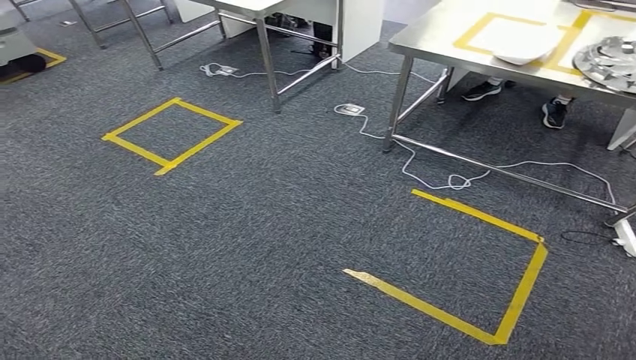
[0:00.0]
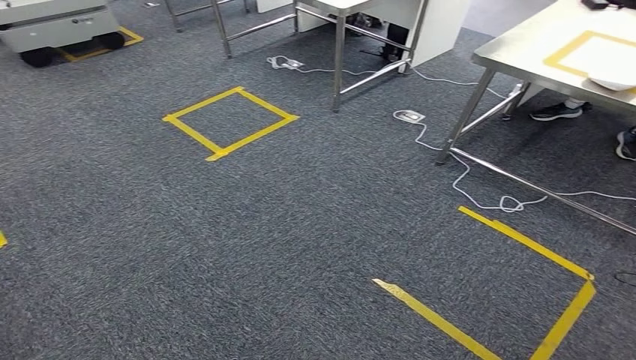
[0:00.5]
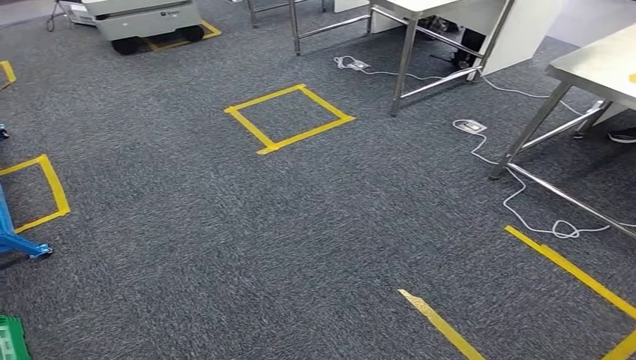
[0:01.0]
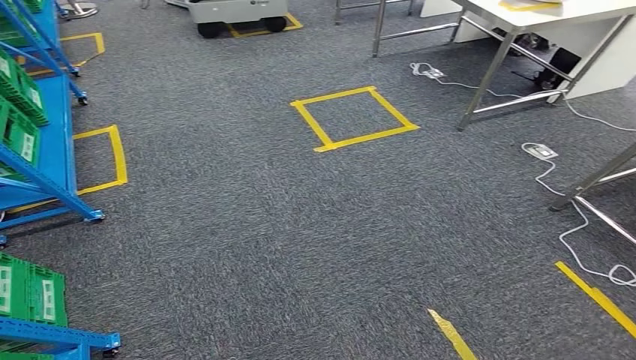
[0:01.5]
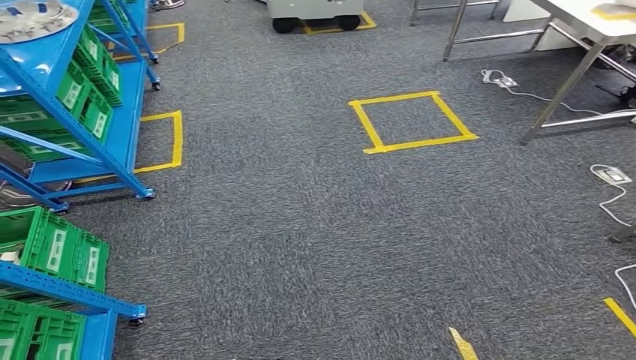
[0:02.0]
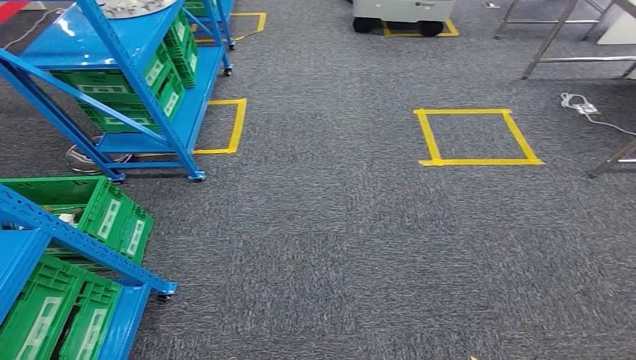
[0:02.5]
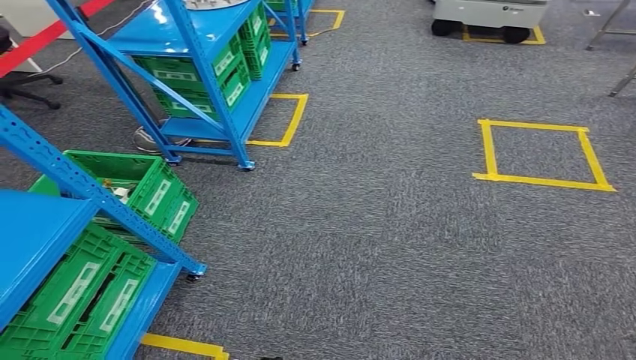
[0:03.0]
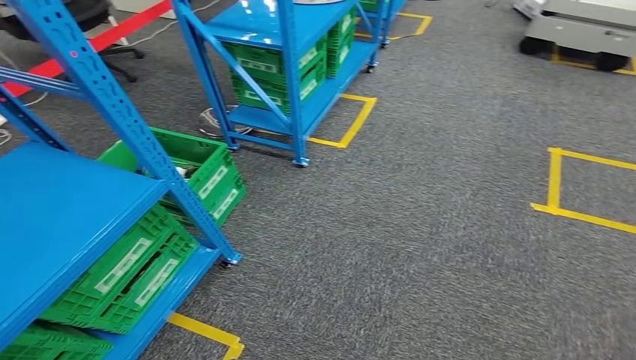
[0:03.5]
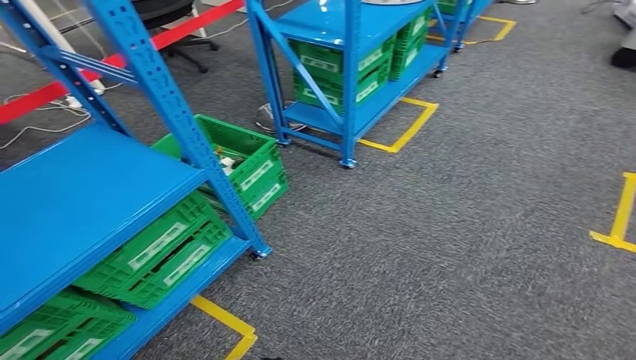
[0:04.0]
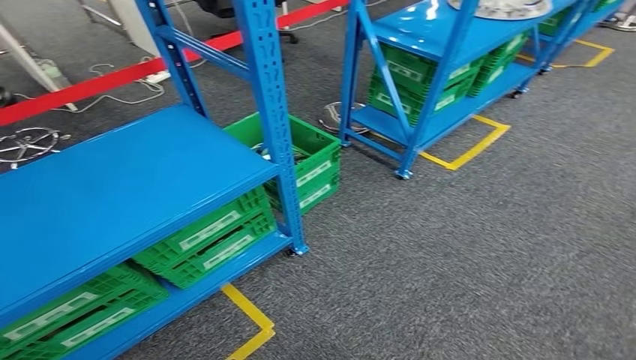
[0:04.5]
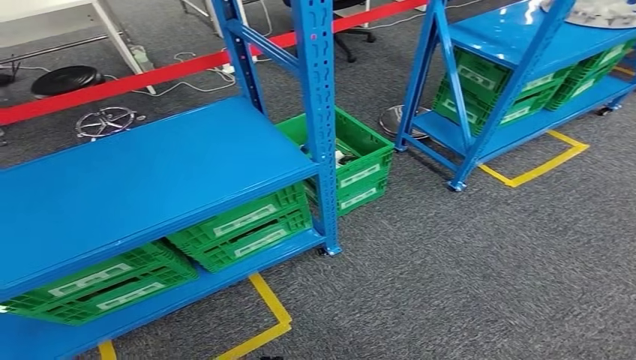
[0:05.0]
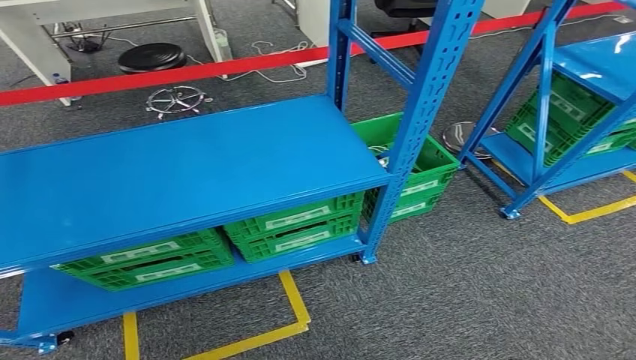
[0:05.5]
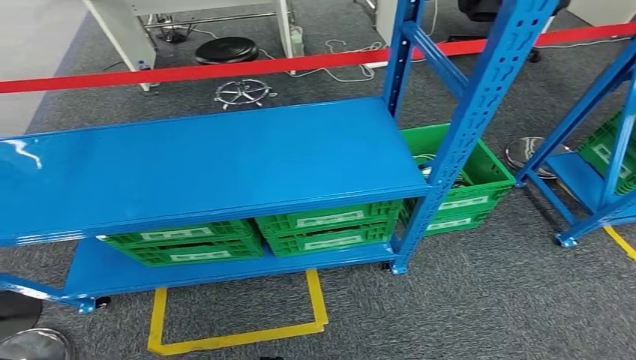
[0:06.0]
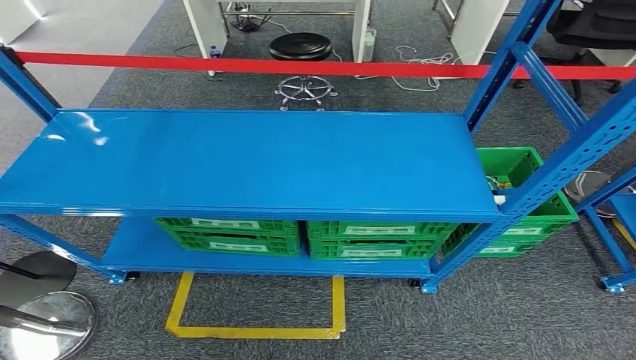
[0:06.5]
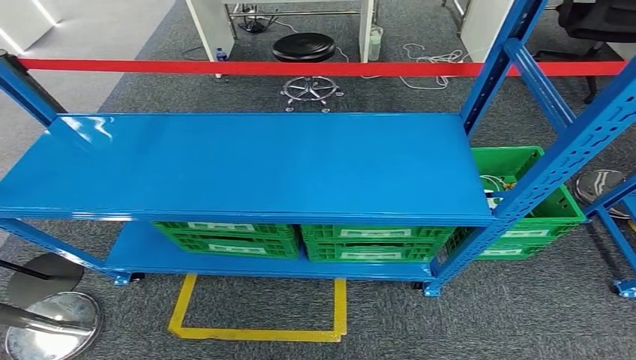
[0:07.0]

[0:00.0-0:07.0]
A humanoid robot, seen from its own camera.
Step, 0:00.0 to 0:07.0: Move to the initial position at the workbench.

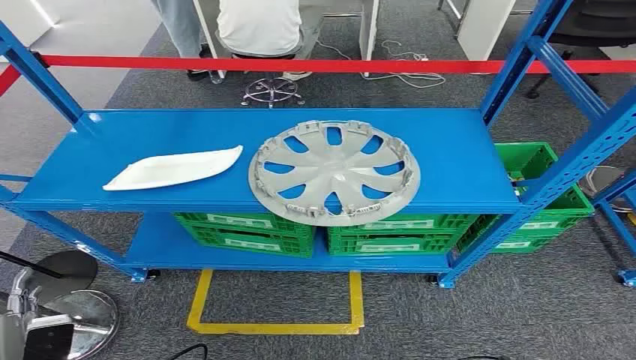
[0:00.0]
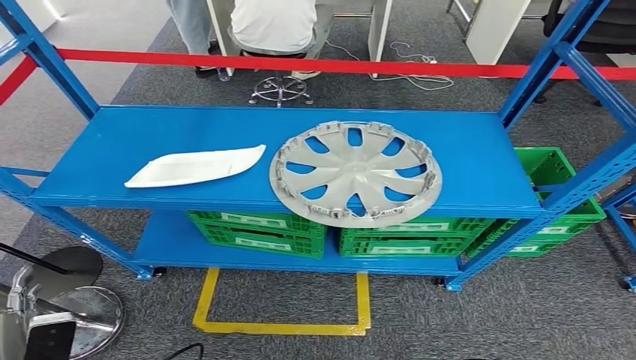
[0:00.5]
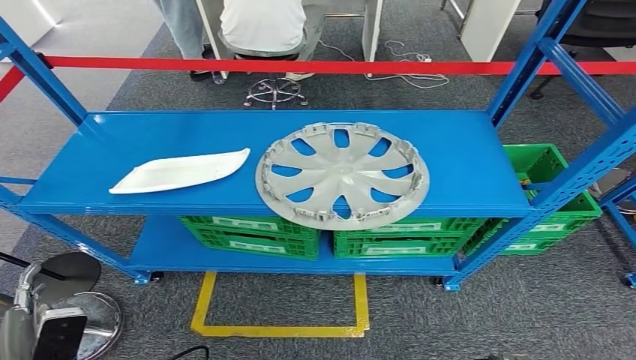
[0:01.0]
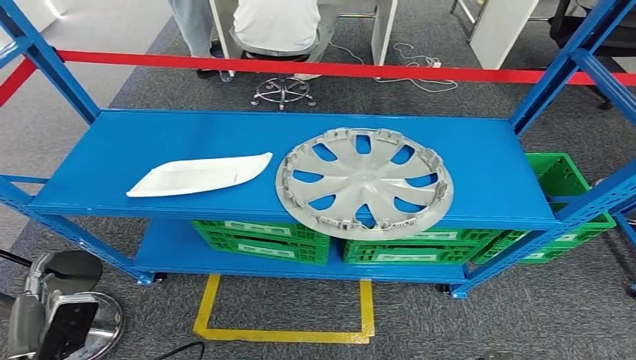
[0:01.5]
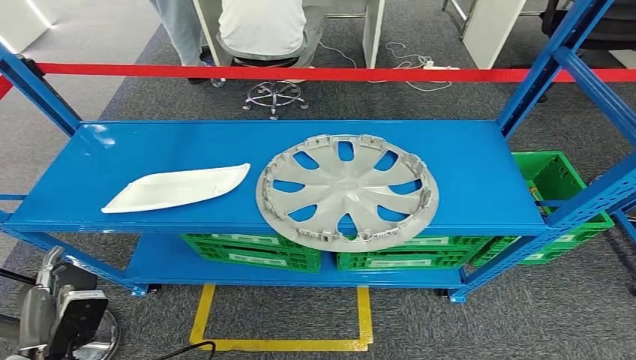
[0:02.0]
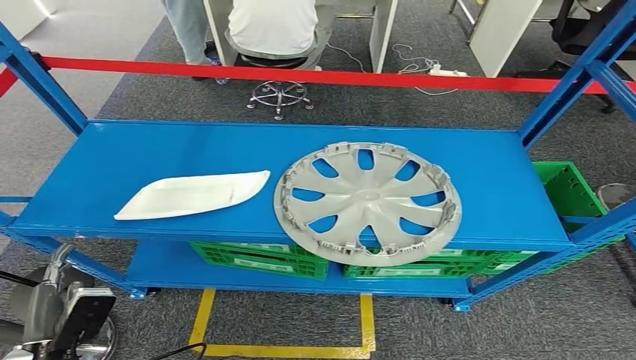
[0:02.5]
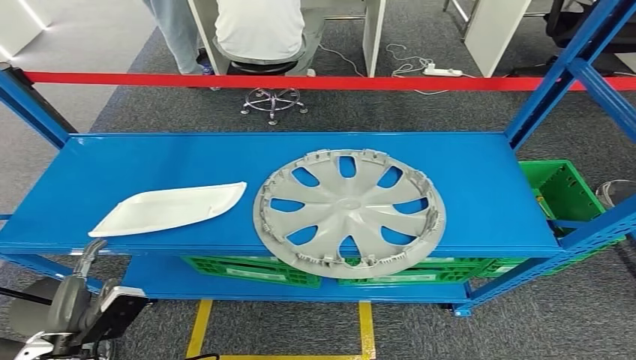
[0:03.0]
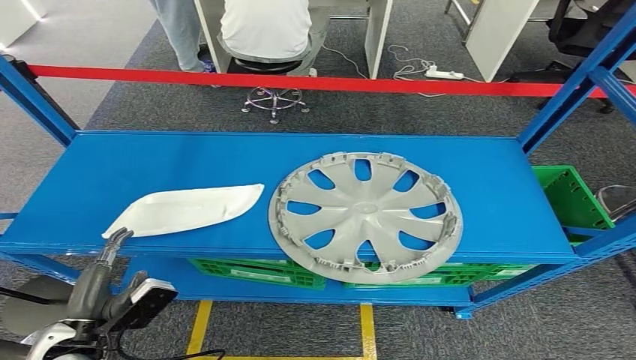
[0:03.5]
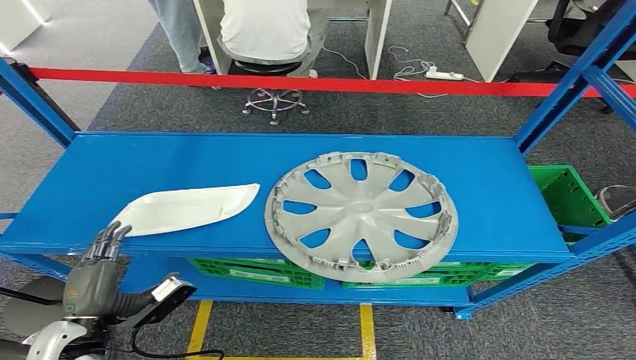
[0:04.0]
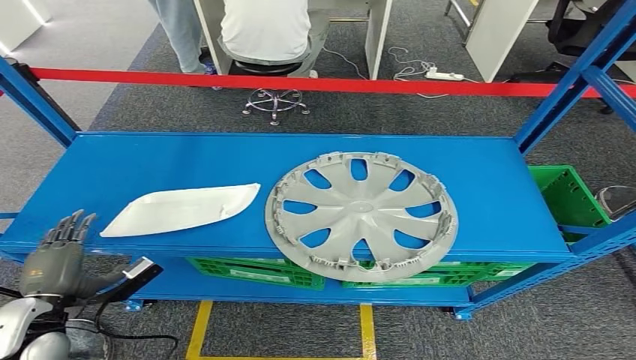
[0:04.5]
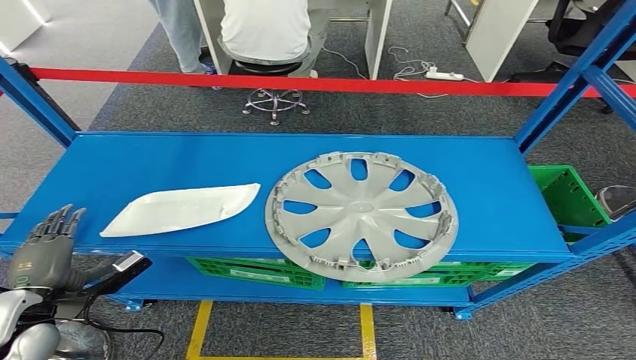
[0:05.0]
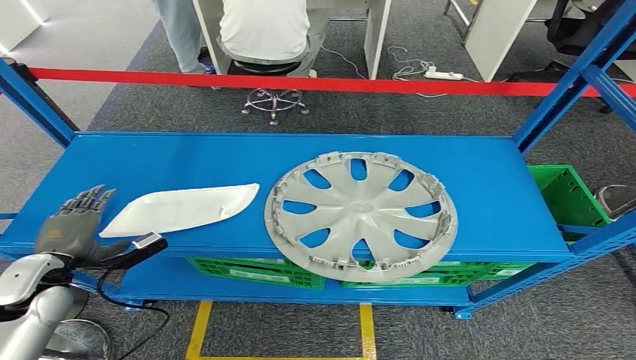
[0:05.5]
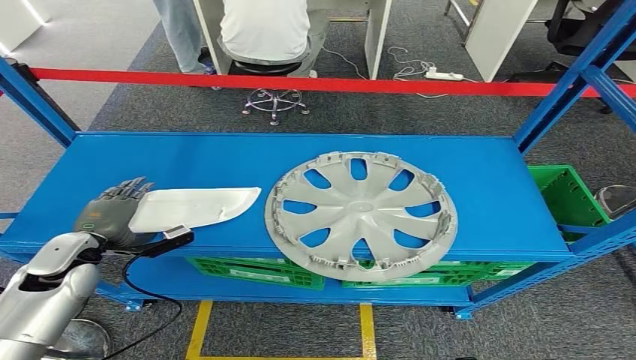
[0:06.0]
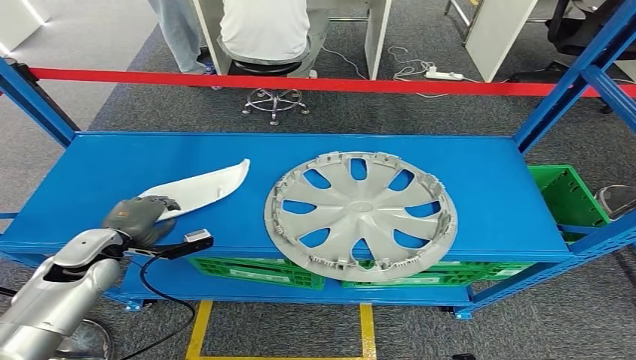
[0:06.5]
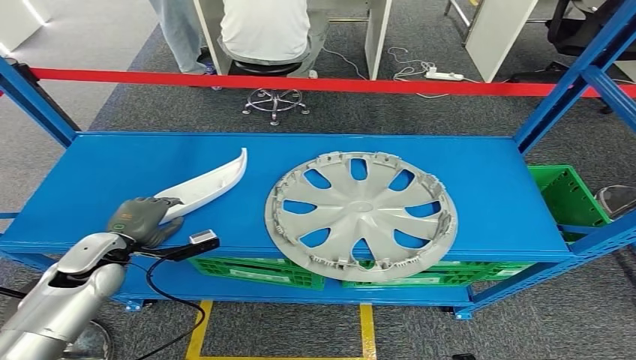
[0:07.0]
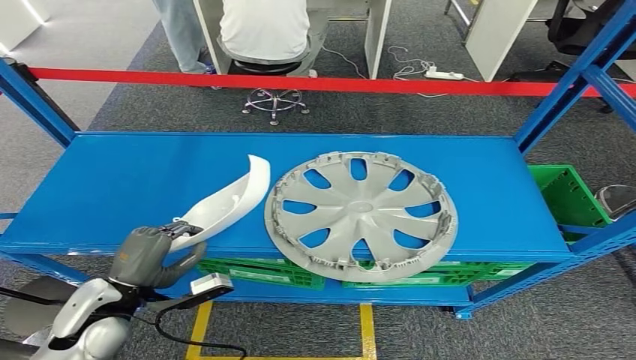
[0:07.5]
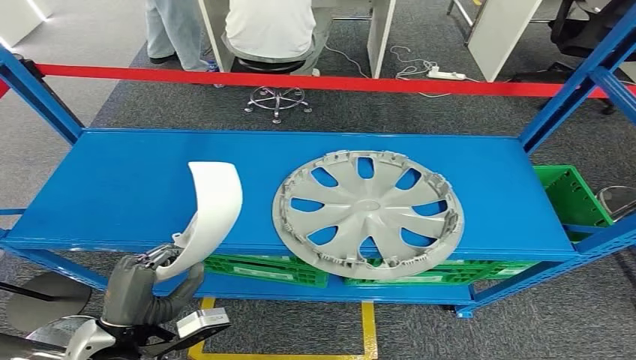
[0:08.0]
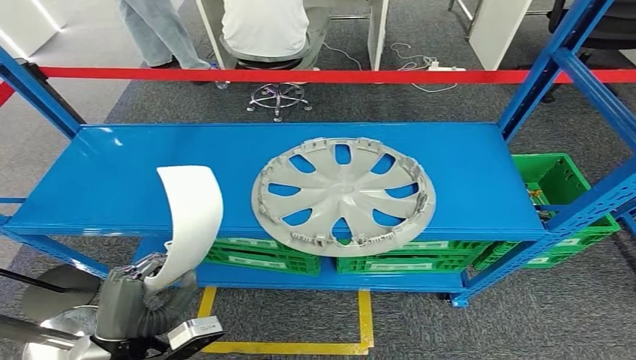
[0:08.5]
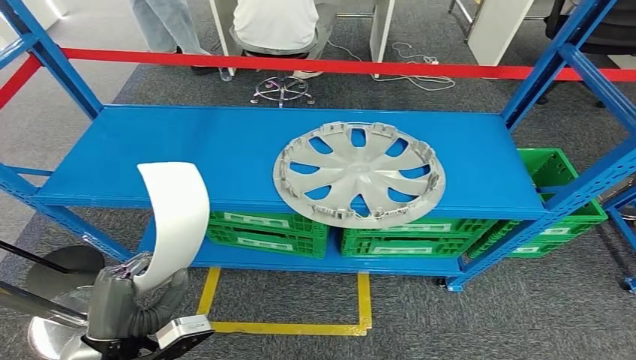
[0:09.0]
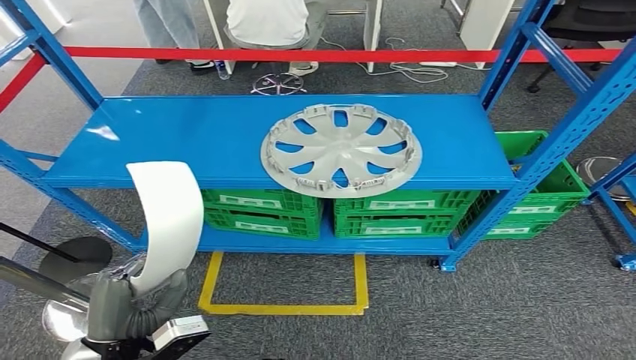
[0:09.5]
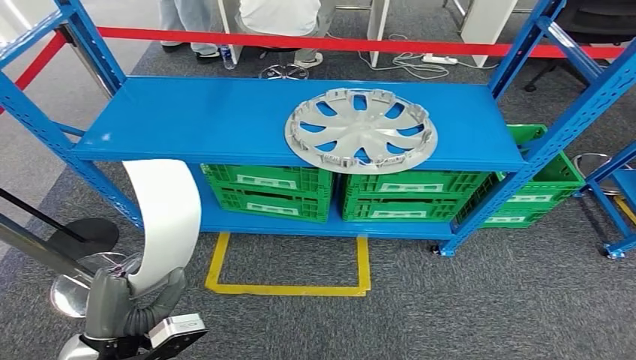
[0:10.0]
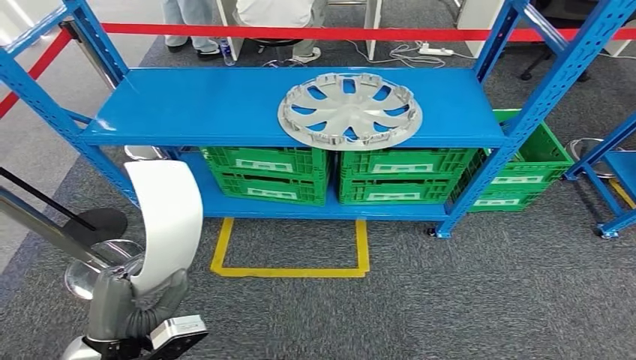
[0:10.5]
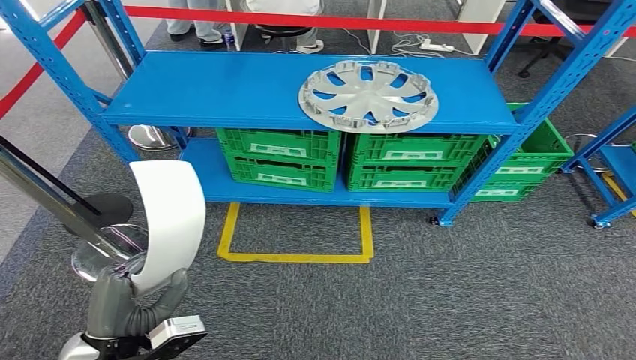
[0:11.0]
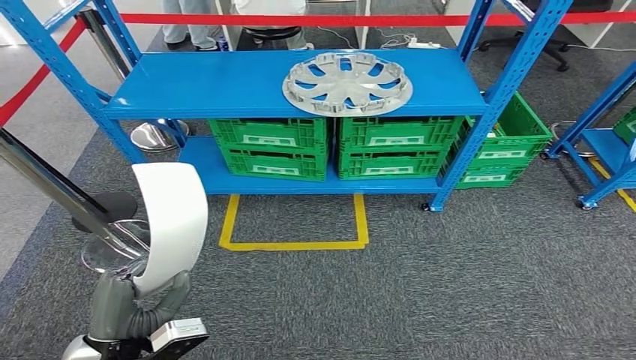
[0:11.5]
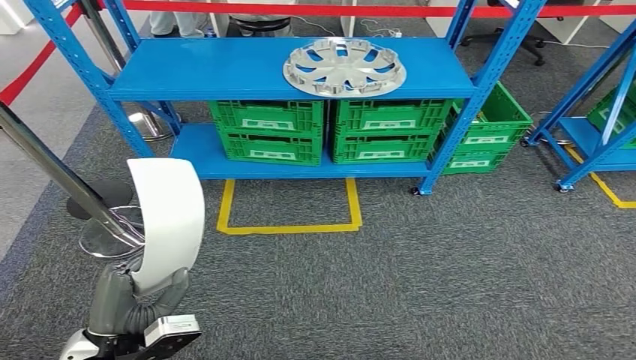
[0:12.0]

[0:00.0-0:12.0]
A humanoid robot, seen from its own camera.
Step, 0:00.0 to 0:11.0: Pick up the small component from the shelf.
0:04.0 to 0:06.0: The left hand travels forward by some 15 cm.

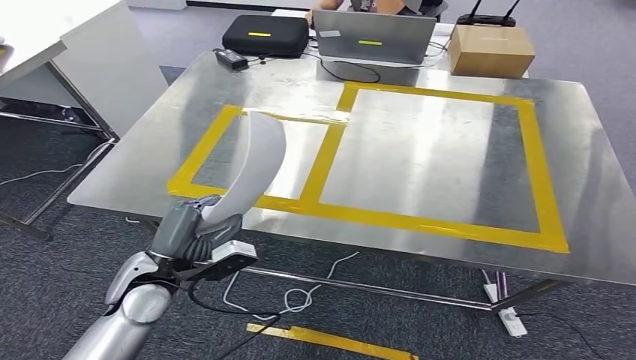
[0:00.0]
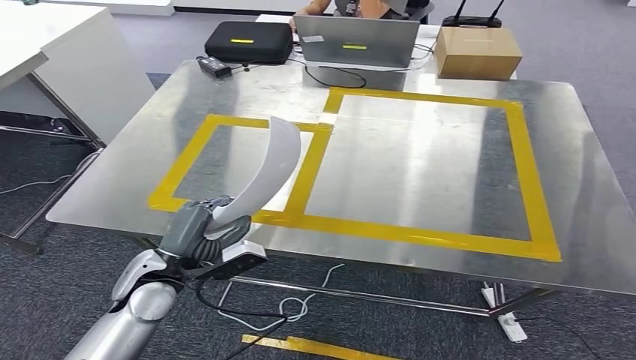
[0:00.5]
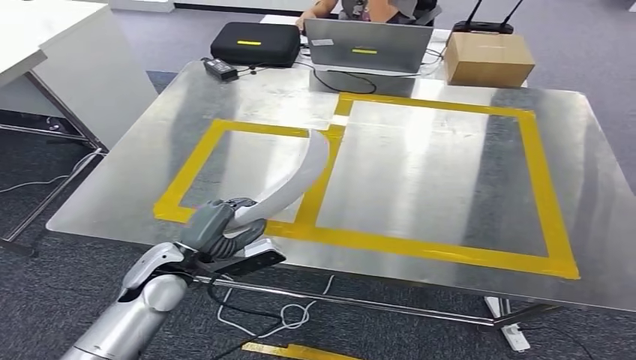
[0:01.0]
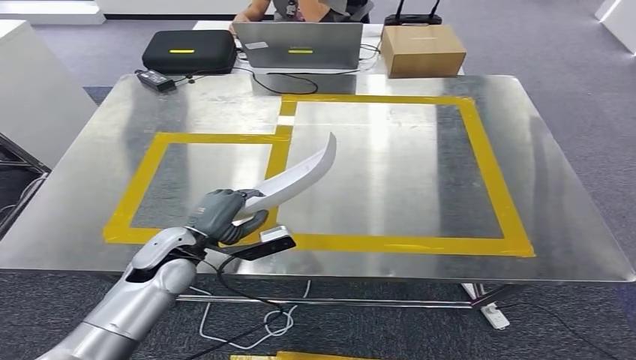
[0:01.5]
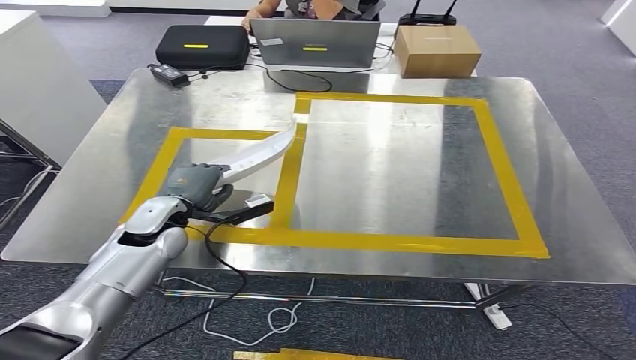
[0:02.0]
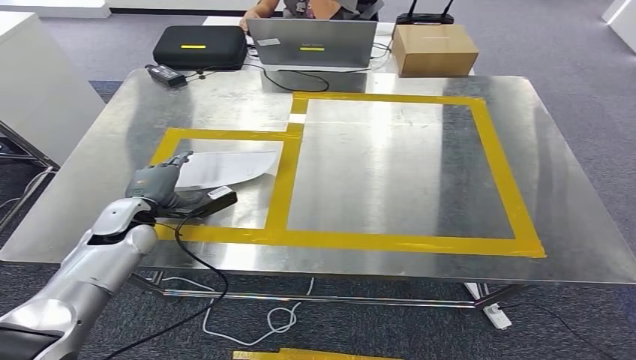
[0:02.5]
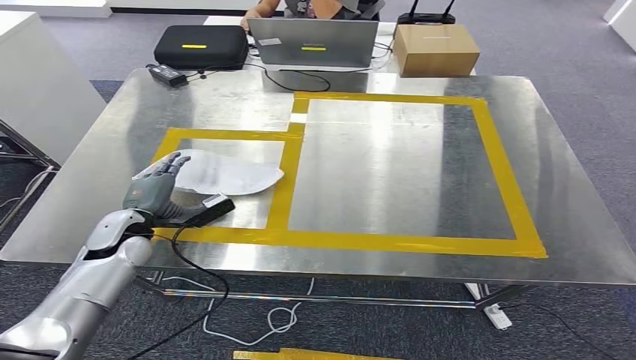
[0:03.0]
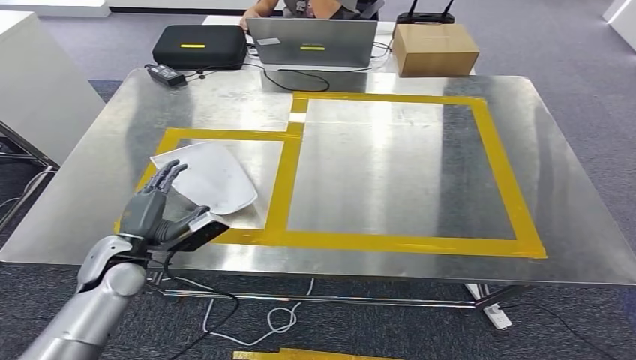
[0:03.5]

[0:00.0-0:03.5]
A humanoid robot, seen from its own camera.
0:02.0 to 0:03.5: The left hand goes some 10 cm to the left and backward.
